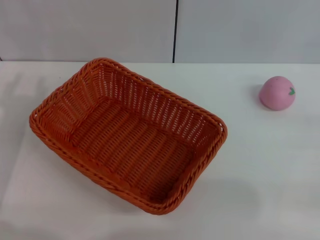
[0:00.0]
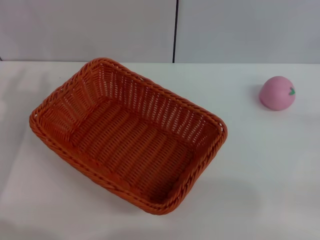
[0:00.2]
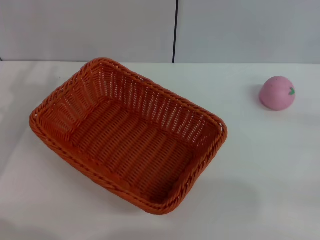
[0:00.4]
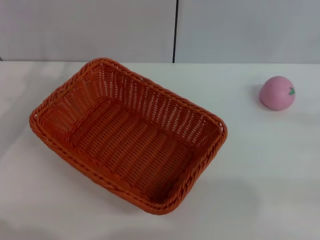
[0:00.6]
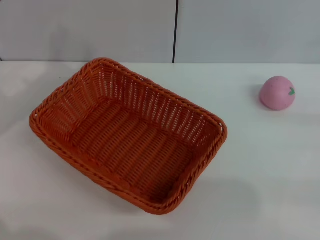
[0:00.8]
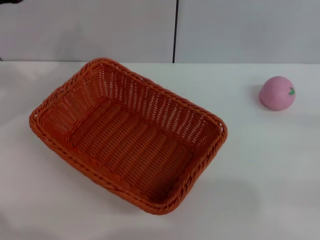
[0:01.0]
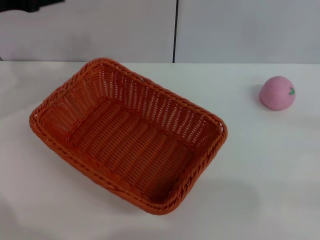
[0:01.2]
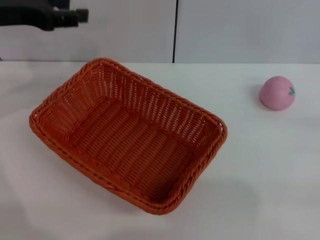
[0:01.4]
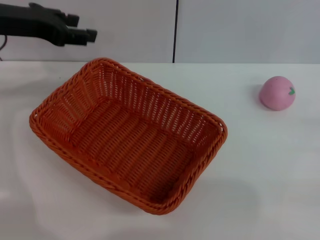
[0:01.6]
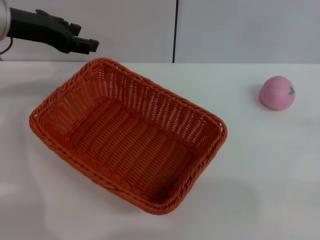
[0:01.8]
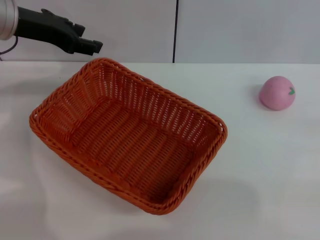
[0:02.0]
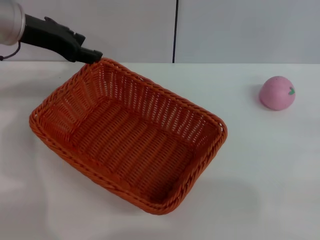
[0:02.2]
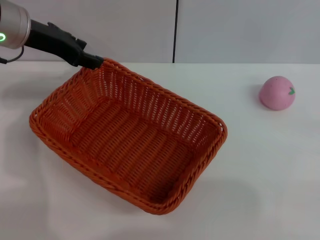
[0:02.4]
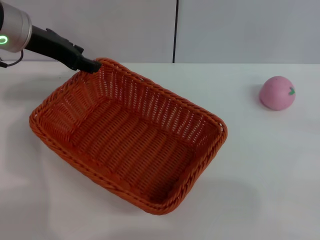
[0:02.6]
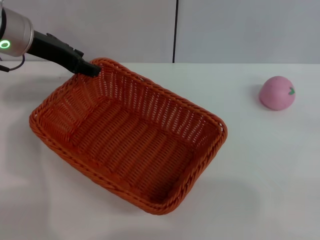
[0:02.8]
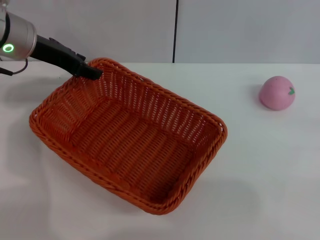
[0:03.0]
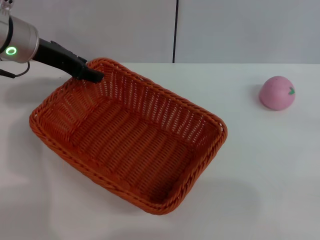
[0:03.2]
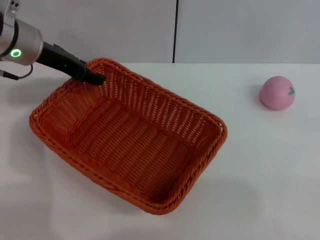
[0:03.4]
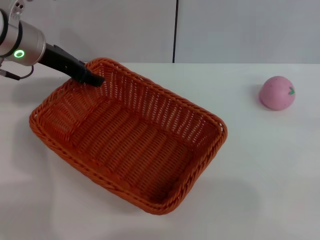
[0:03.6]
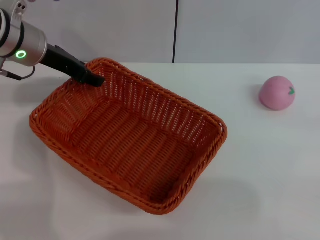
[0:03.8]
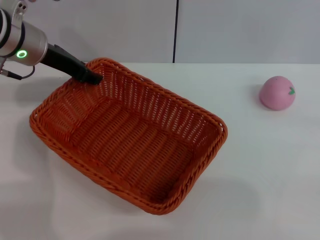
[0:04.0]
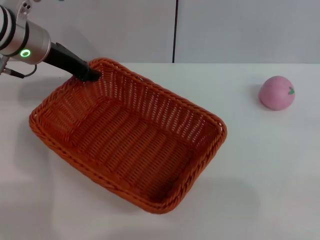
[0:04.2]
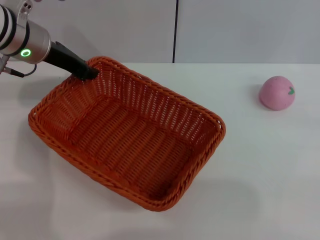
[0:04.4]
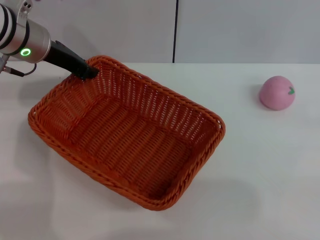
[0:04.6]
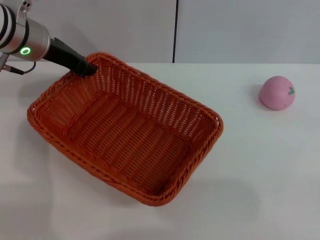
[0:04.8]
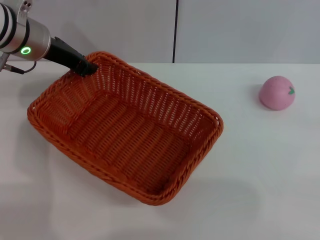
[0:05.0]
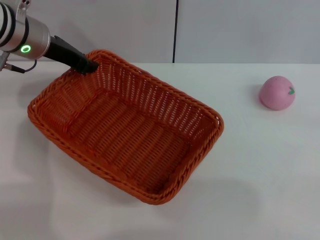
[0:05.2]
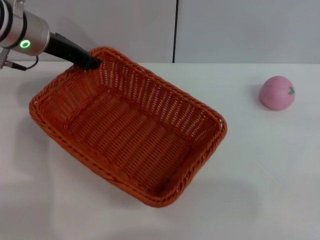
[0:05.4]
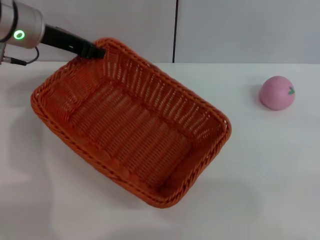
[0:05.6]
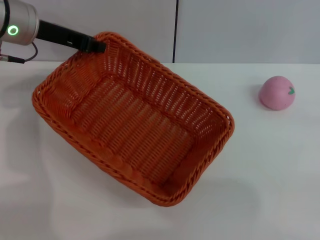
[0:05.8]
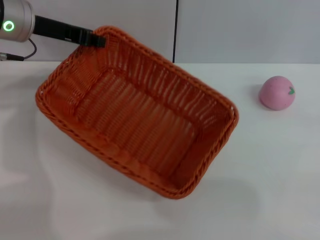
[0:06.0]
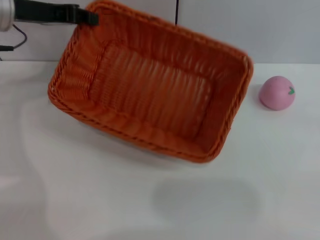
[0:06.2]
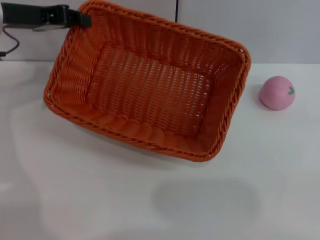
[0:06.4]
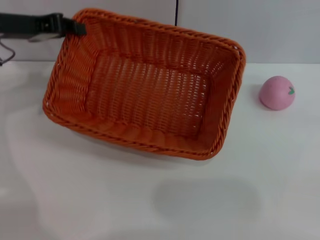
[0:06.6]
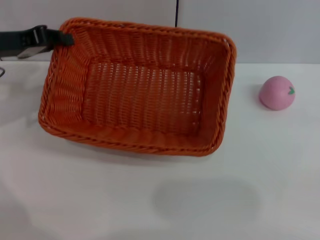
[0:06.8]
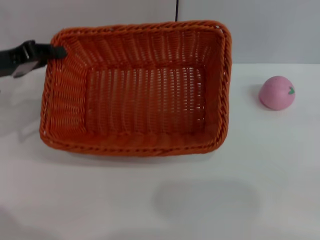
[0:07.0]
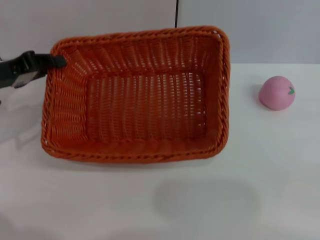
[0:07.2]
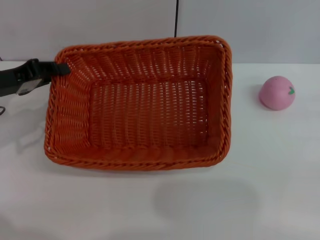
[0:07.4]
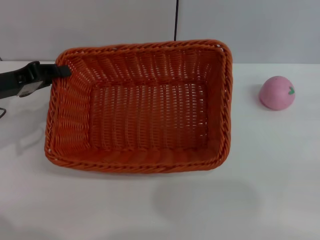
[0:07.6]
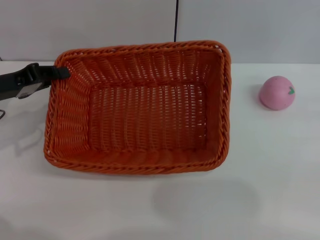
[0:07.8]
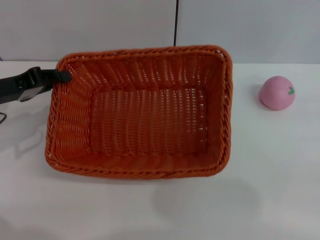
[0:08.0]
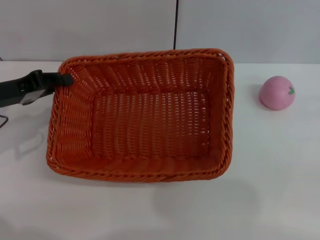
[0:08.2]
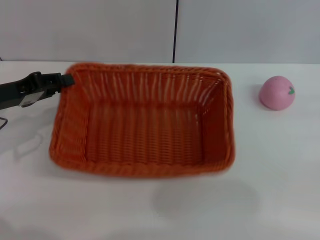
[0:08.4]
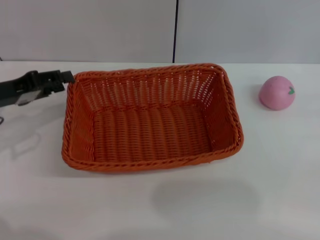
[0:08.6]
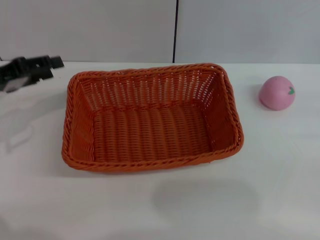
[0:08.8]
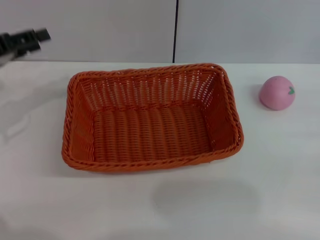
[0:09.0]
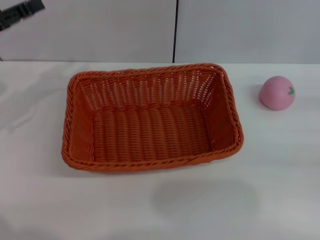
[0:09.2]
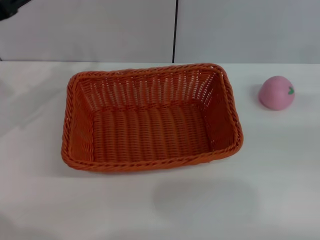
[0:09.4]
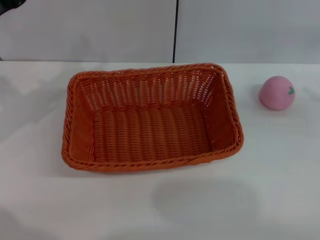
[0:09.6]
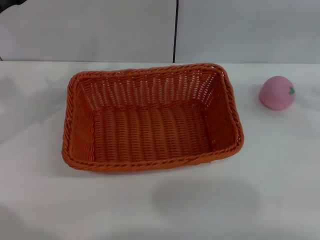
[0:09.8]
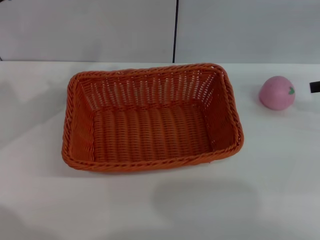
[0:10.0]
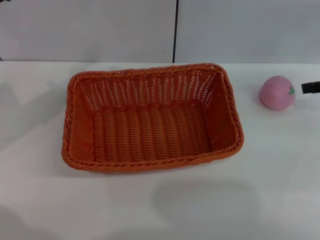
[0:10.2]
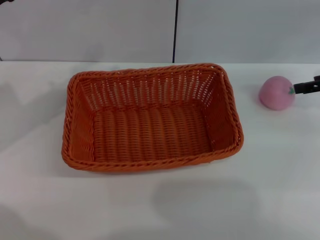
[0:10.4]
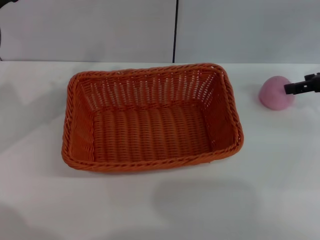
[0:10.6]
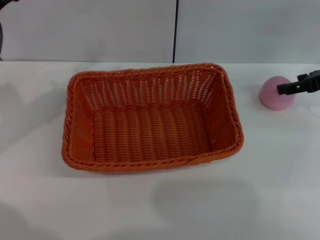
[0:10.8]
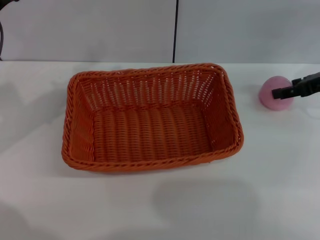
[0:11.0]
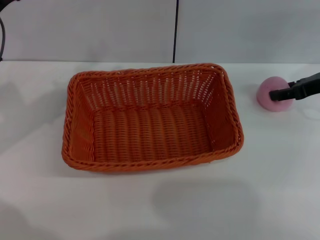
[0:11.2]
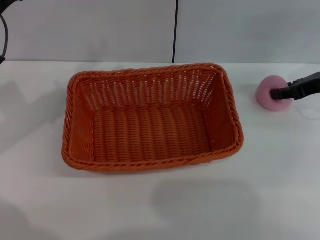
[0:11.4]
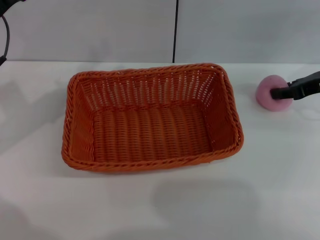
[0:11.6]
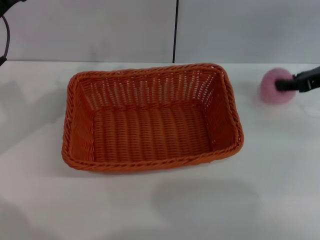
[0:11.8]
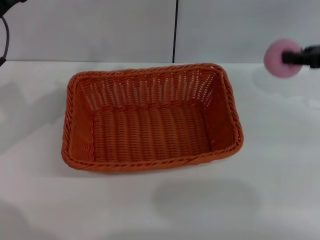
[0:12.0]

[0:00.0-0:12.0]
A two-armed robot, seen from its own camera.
Step, 0:00.0 to 0:06.0: Pick up the light basket with the left gripper.
Step, 0:06.2 to 0:08.6: Place the light basket in the center of view with the right gripper.
Step, 0:08.8 to 0:11.8: Pick up the peach with the left gripper.
0:00.0 to 0:01.6: The left gripper moves forward and upward, approximately 20 cm.
0:01.6 to 0:03.0: The grippers stay close to where they were, moving slightly.
0:03.0 to 0:04.4: The left gripper closes.
0:04.4 to 0:06.0: The left gripper closes.
0:06.0 to 0:07.6: The left gripper heads backward, to the left and downward, covering some 15 cm.
0:07.6 to 0:09.0: The left gripper opens its fingers.
0:09.0 to 0:10.4: The right gripper moves forward, upward and to the left, approximately 15 cm, while the left gripper shifts some 5 cm to the right.
0:10.4 to 0:12.0: The right gripper closes its fingers.

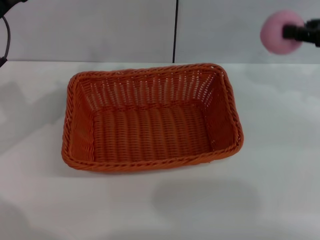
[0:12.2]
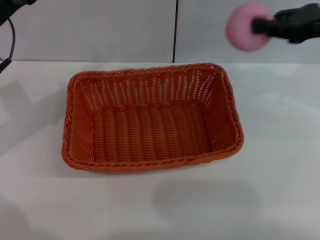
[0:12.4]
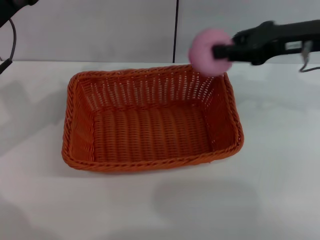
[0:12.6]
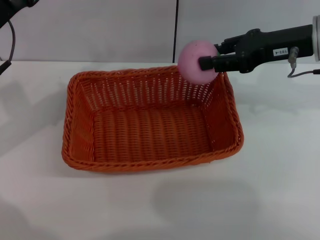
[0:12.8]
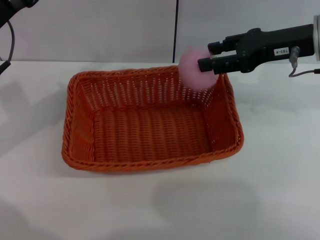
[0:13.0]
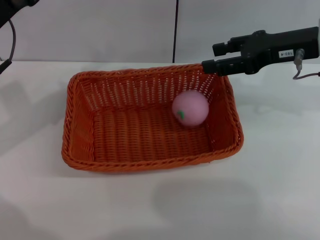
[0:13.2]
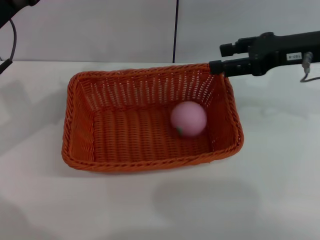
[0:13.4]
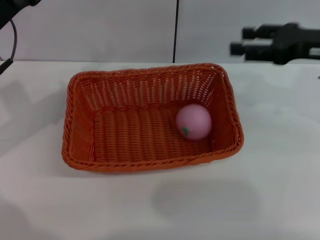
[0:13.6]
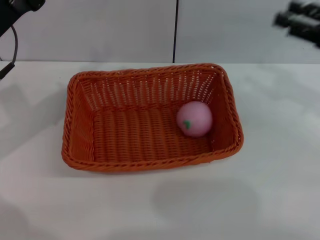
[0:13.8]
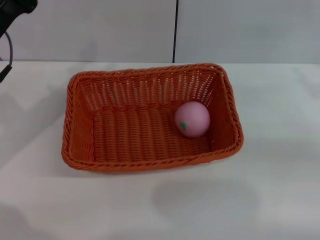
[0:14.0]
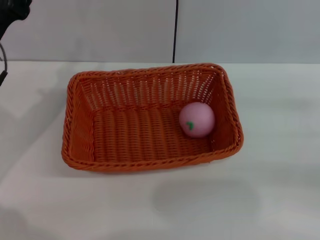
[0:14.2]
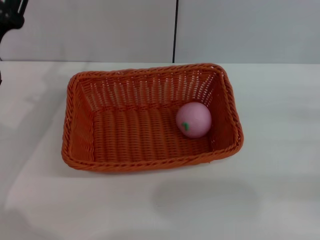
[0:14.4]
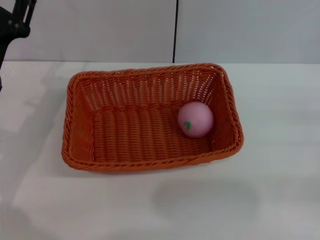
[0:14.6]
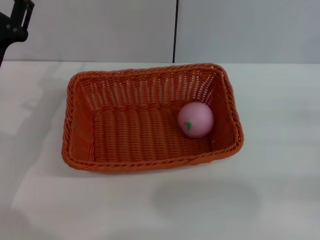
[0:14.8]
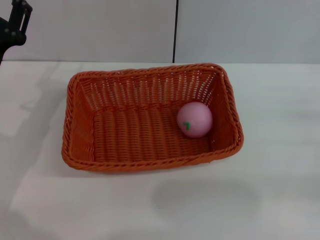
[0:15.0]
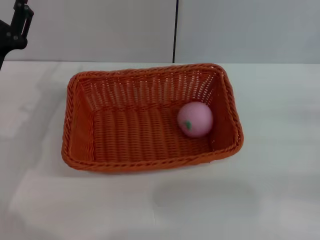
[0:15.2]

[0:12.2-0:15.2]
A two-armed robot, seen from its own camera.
0:12.2 to 0:13.8: The right gripper reaches approximately 10 cm to the left, then returns, and opens its fingers.
0:13.8 to 0:15.2: The left gripper moves downward, approximately 10 cm; the right gripper goes some 15 cm downward, backward and to the right.

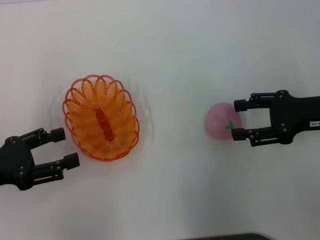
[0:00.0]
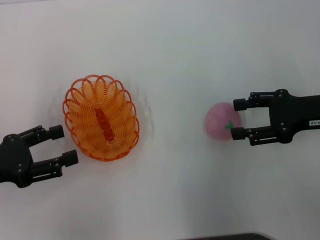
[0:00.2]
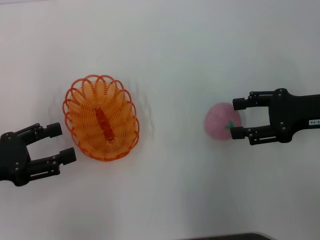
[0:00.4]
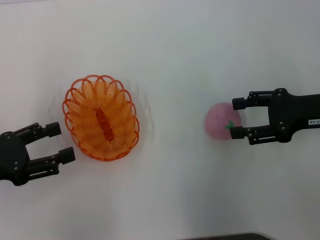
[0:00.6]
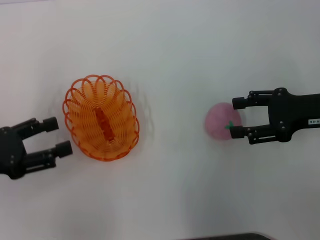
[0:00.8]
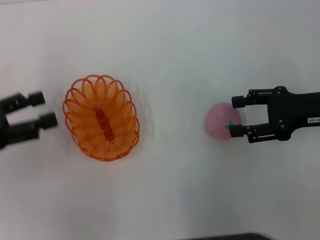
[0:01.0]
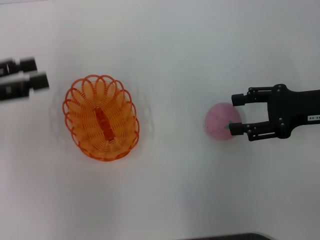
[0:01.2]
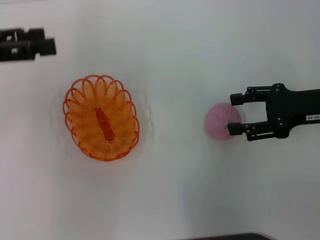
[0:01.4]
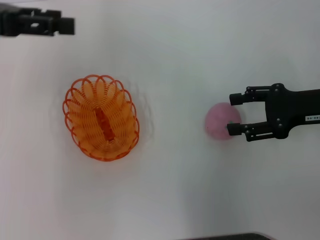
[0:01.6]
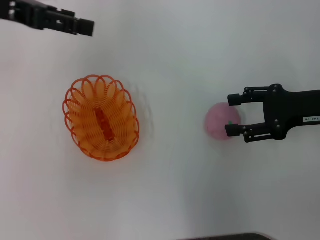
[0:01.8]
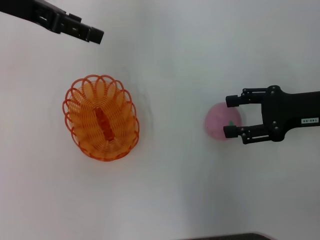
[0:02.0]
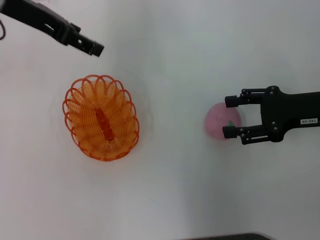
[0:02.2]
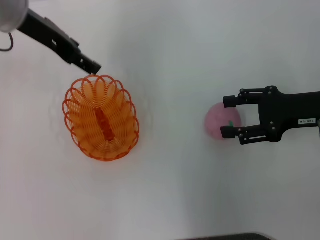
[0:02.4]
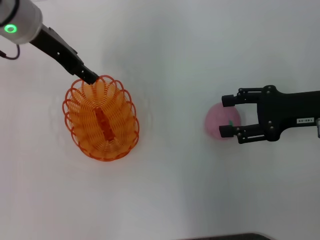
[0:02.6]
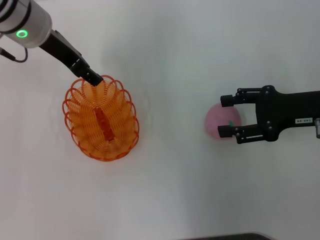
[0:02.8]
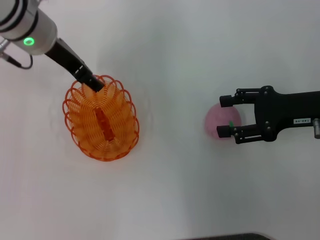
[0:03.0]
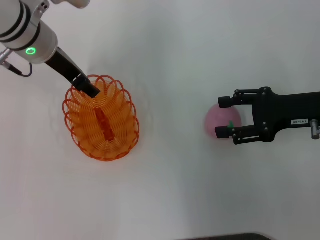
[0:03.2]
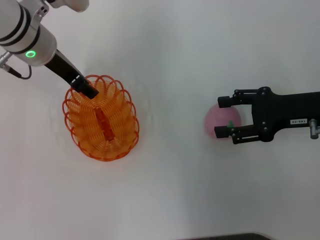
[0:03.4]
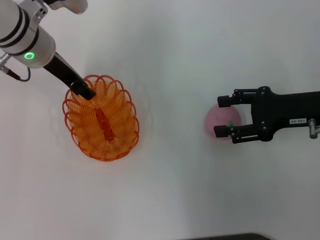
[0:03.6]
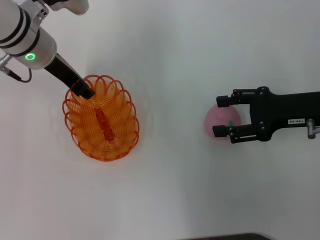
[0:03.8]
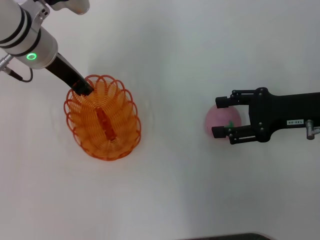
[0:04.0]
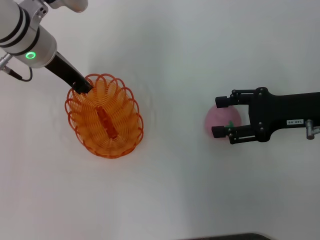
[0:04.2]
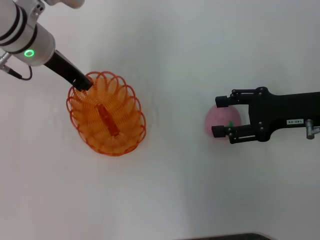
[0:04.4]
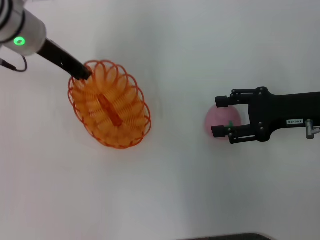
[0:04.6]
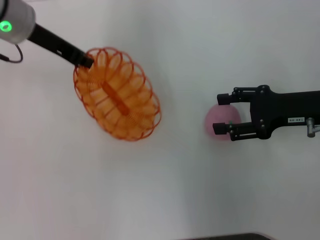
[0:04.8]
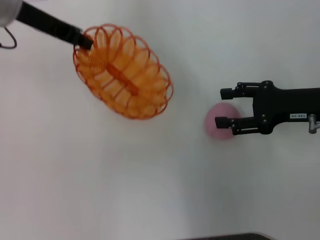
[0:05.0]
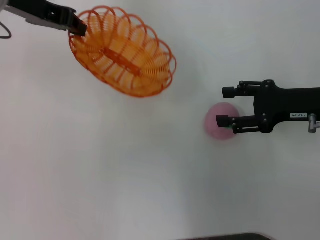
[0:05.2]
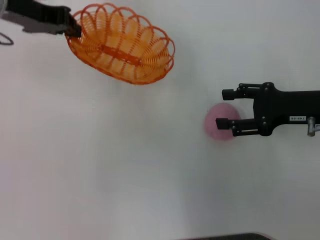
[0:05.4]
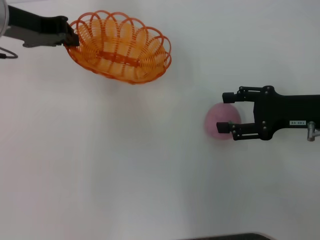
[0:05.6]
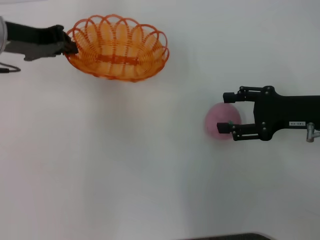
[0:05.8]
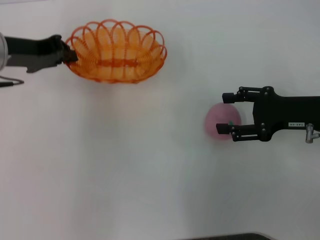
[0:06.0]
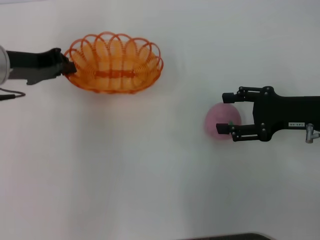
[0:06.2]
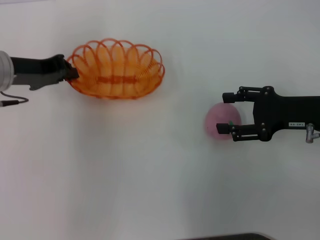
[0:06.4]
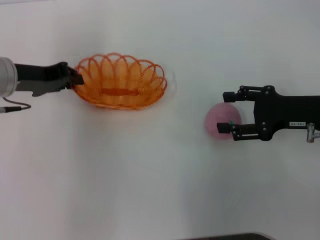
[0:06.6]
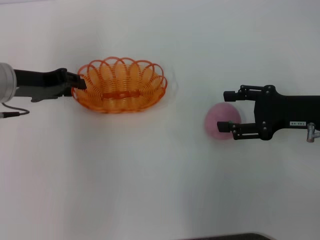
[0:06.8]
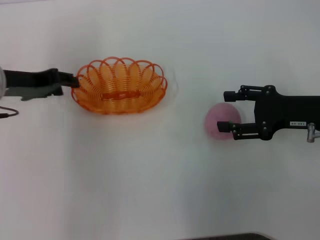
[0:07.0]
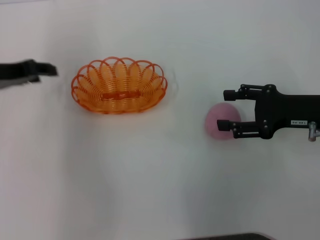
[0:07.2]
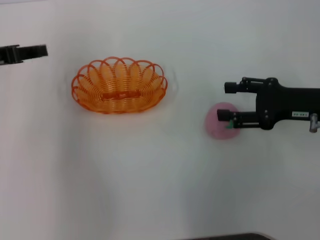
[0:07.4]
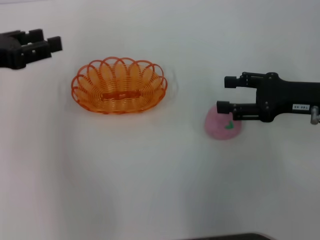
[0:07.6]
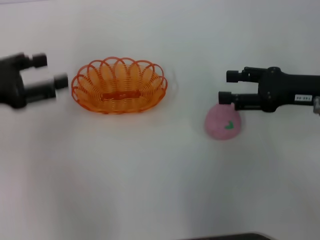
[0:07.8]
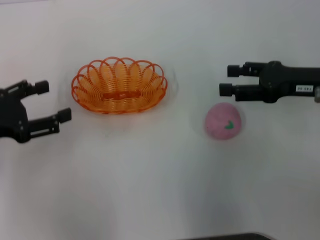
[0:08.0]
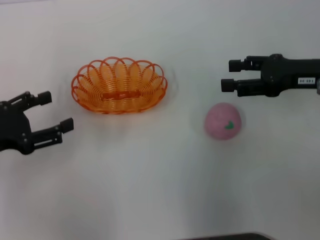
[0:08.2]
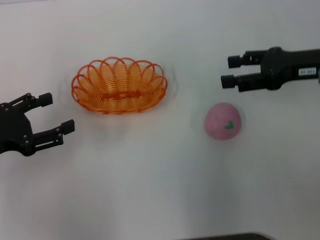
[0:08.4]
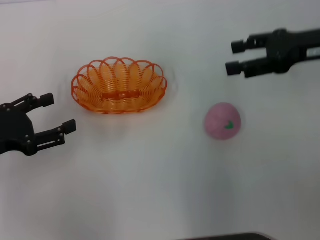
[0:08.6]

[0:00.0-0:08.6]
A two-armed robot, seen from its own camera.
Step, 0:00.0 to 0:04.4: Pick up the basket with the left gripper.
Step, 0:04.6 to 0:07.2: Place the basket in the center of view with the left gripper.
0:00.0 to 0:01.4: The left gripper moves upward and forward, about 15 cm.
0:01.4 to 0:02.8: The left gripper goes about 20 cm to the right and forward.
0:02.8 to 0:04.4: The left gripper closes its fingers.
0:04.4 to 0:05.8: The left gripper travels to the left by about 5 cm, and travels upward and back again, about 10 cm each way.
0:05.8 to 0:07.2: The left gripper changes place by roughly 5 cm, and opens its fingers.
0:07.2 to 0:08.6: The right gripper goes roughly 10 cm upward and forward. Meanwhile the left gripper shifts some 10 cm backward and downward, and opens.
